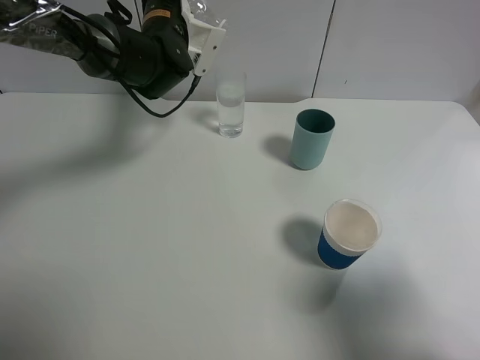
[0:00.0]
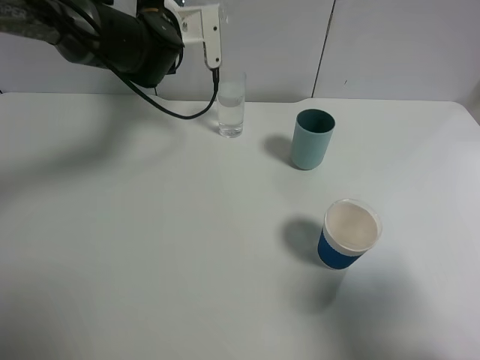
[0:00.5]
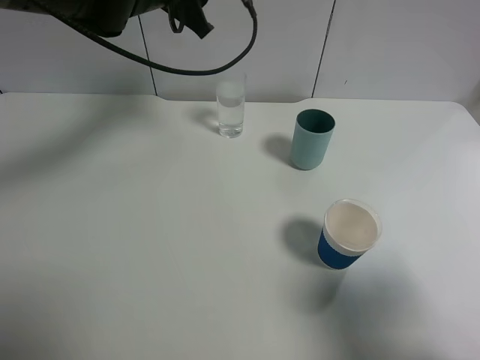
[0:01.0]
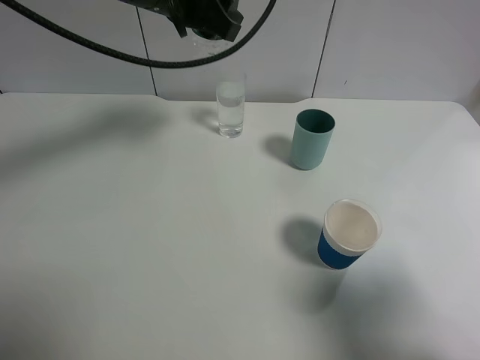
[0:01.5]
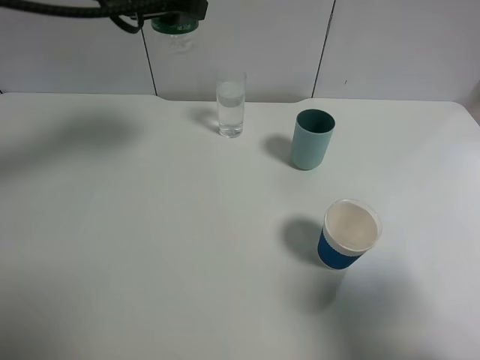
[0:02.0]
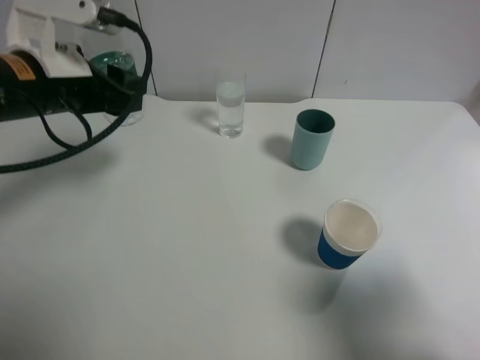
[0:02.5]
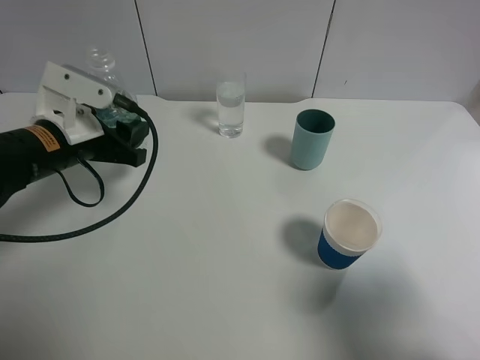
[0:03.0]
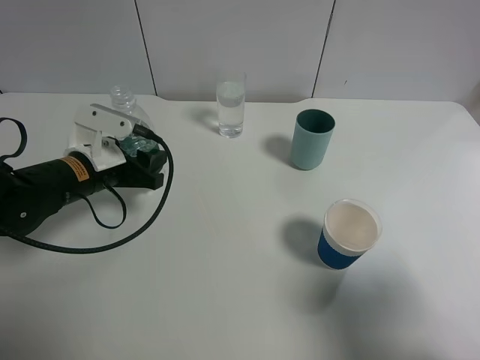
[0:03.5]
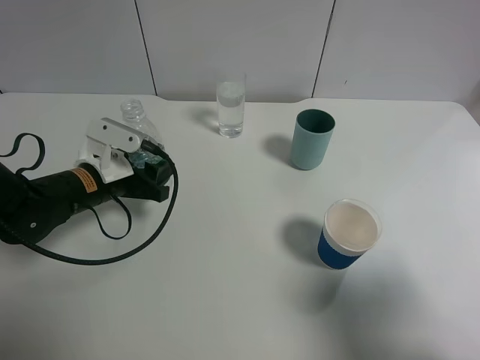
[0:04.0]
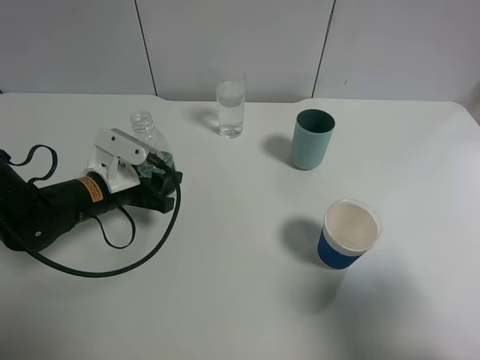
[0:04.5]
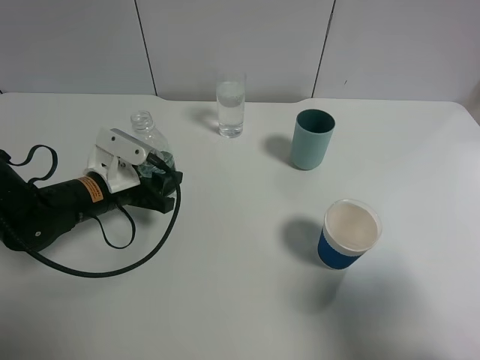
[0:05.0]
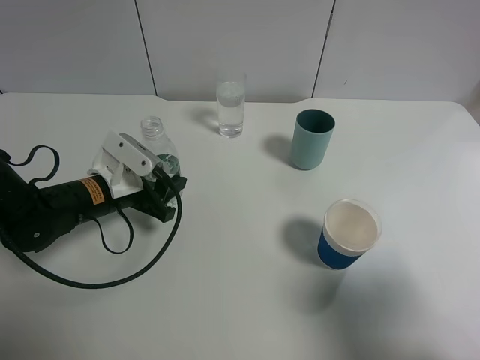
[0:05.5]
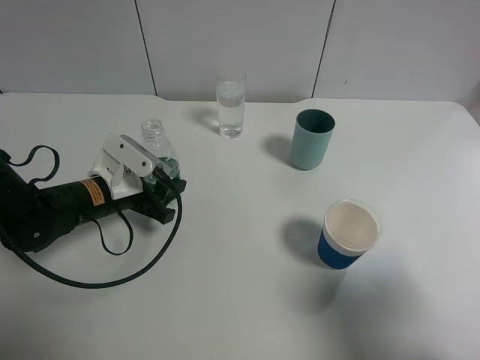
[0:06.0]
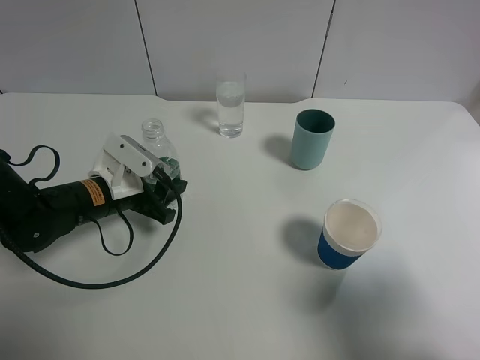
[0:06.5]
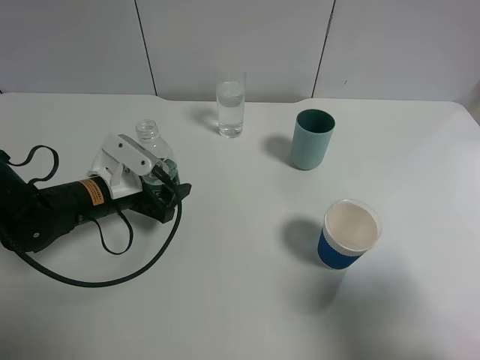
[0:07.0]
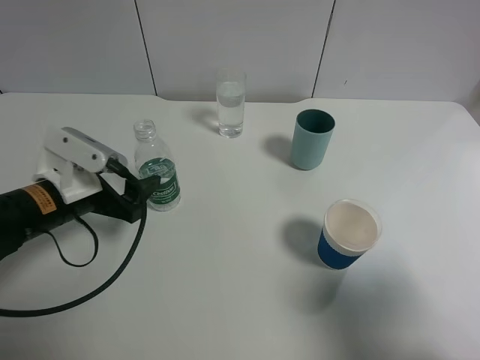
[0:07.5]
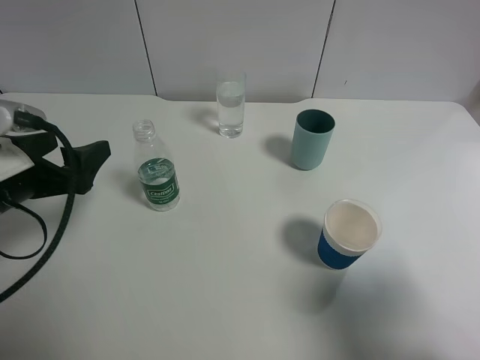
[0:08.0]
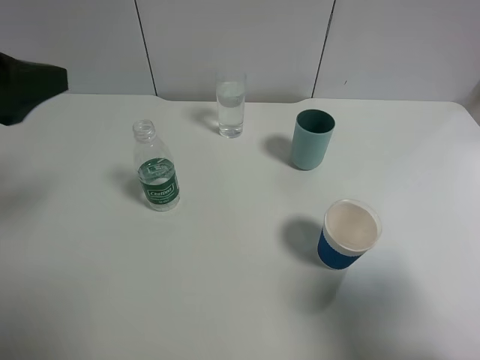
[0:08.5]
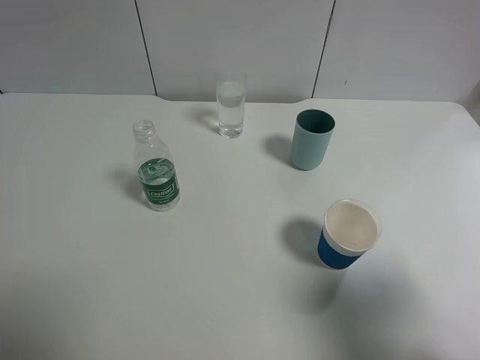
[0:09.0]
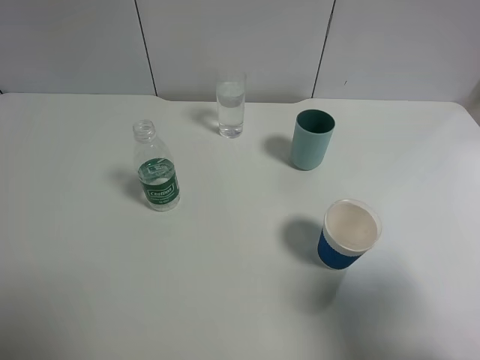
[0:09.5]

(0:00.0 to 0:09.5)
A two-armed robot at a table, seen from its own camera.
Task of the whole recording: use a gripper to hold the bottle of the drink and pour it into a random cup.
Step, 0:00.5 - 0:07.5: Place the mineral water bottle on the table with the left gripper.
0:00.0 - 0:02.0: The left gripper goes some 15 cm backward and upward.
0:02.0 - 0:04.0: The left gripper is displaced downward by some 25 cm.
0:04.0 - 0:05.5: The grippers stay close to where they were, moving slightly.
0:05.5 - 0:07.5: The left gripper moves backward, roughly 5 cm, and opens.
0:07.5 - 0:09.5: The left gripper heads upward, backward and to the left, covering some 30 cm.

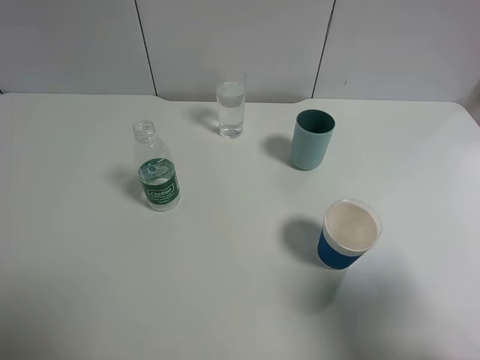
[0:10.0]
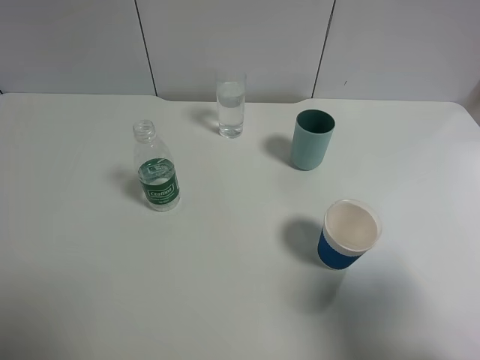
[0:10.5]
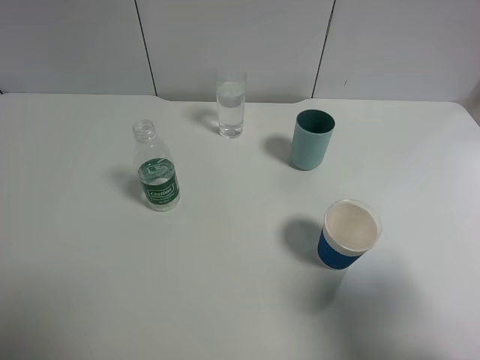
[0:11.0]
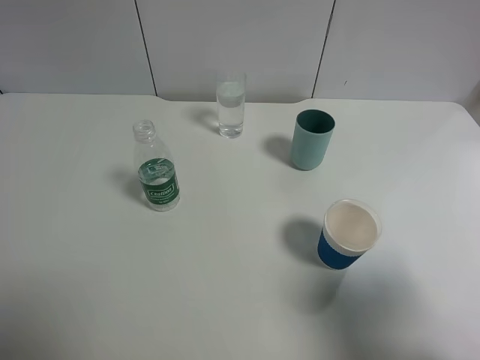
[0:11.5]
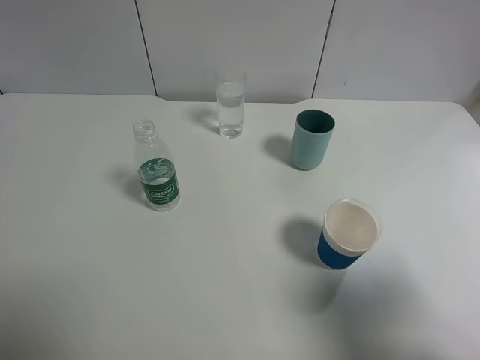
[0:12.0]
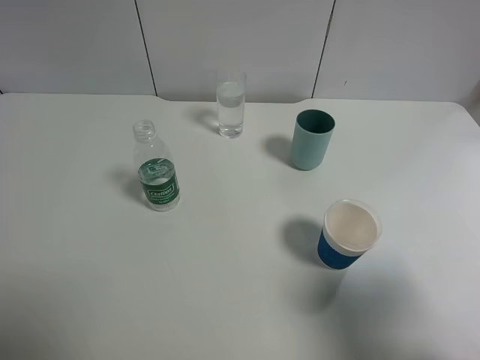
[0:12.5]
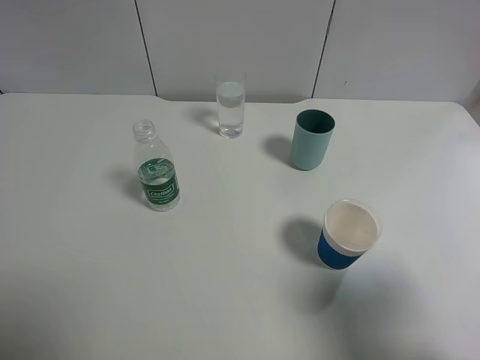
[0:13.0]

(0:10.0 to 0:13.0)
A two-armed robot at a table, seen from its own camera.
Task of the whole recording: use a gripper to hold the bottle of the drink and pour it into a random cup.
0:11.5 - 0:13.0: Neither gripper changes place.

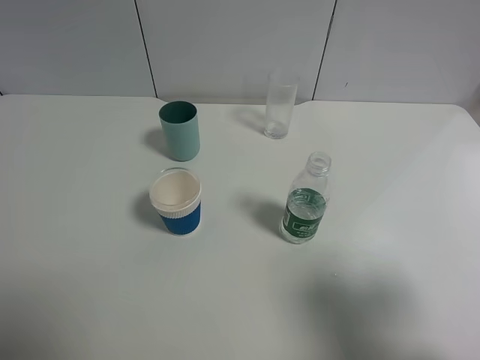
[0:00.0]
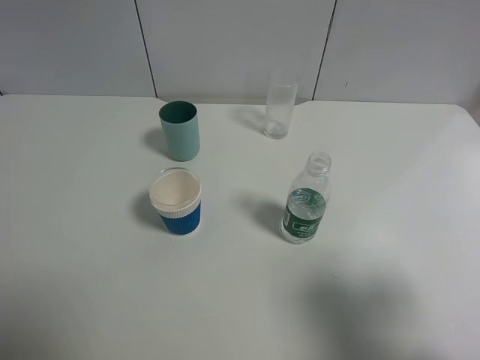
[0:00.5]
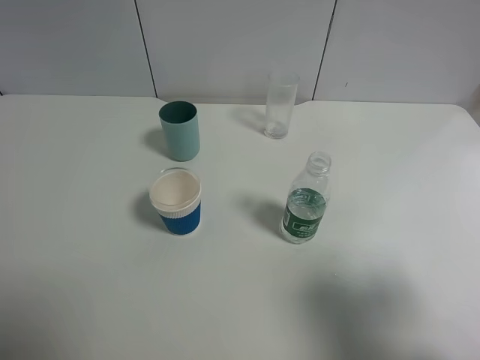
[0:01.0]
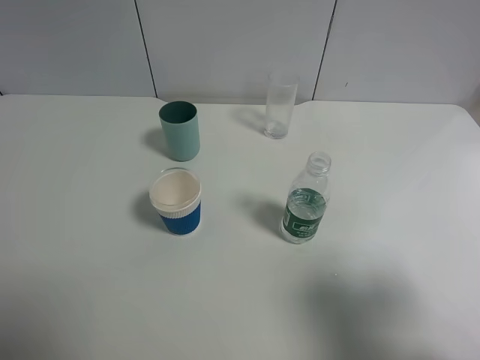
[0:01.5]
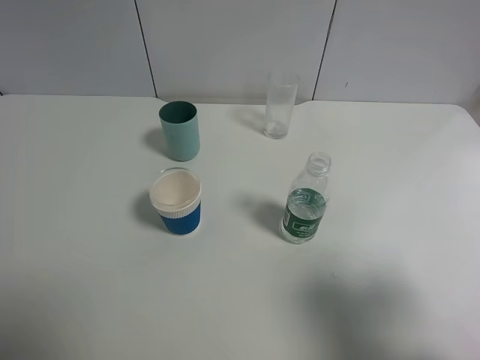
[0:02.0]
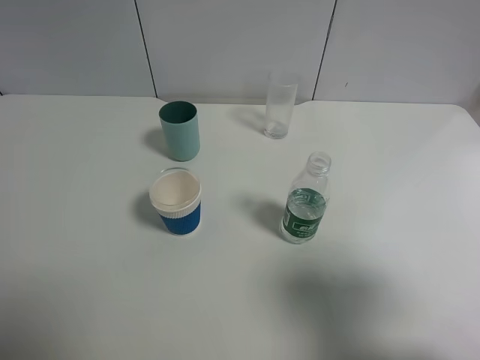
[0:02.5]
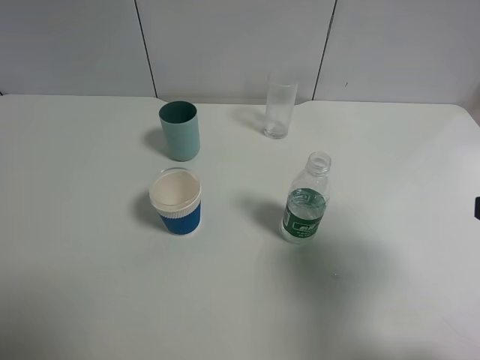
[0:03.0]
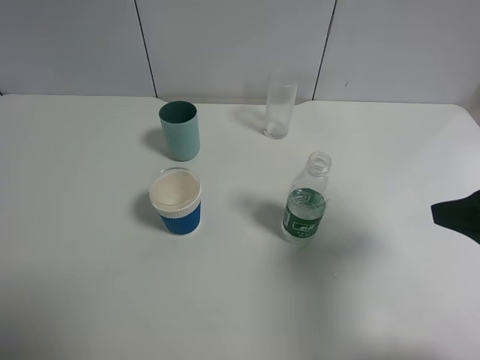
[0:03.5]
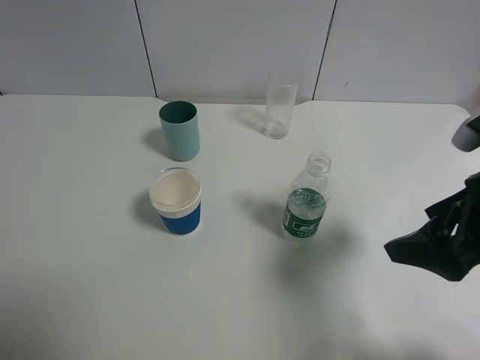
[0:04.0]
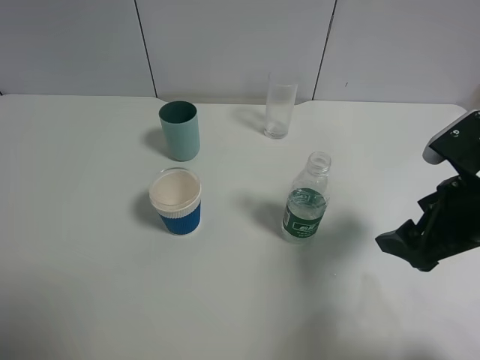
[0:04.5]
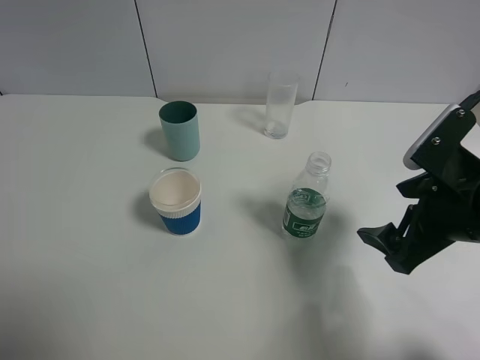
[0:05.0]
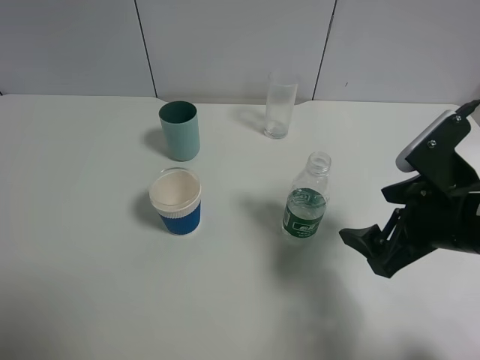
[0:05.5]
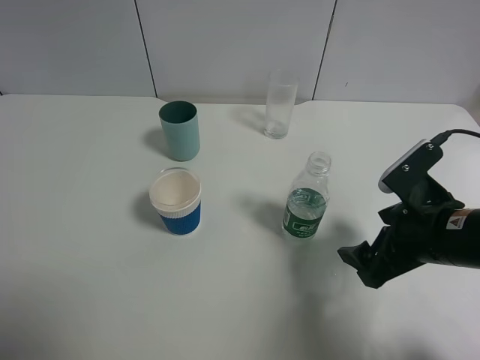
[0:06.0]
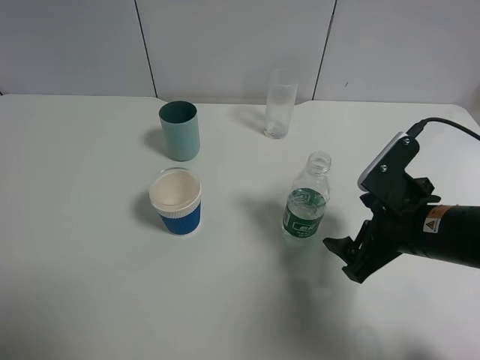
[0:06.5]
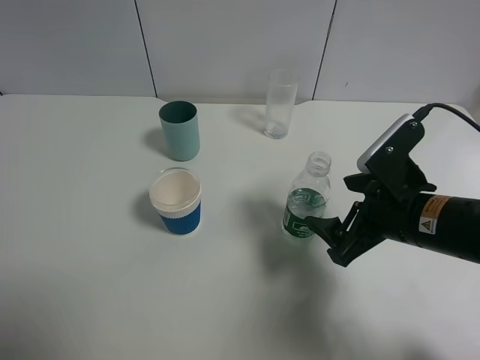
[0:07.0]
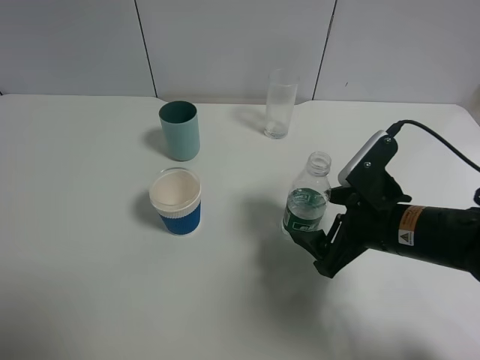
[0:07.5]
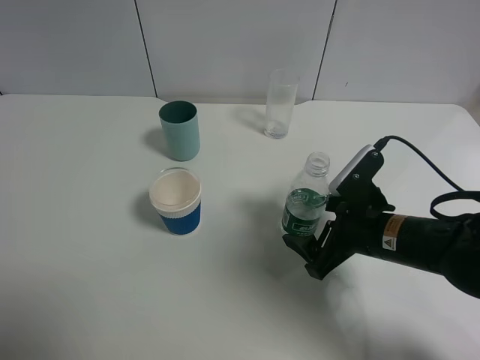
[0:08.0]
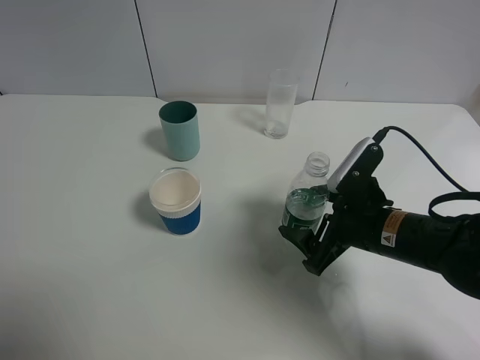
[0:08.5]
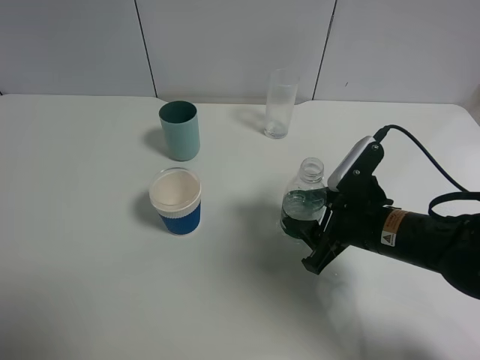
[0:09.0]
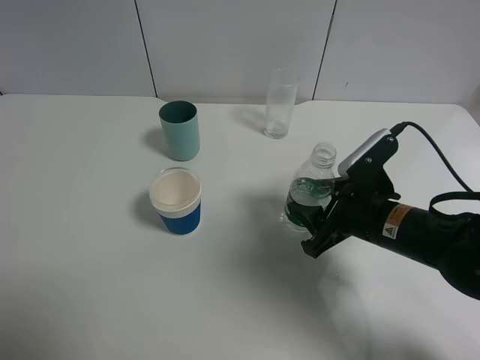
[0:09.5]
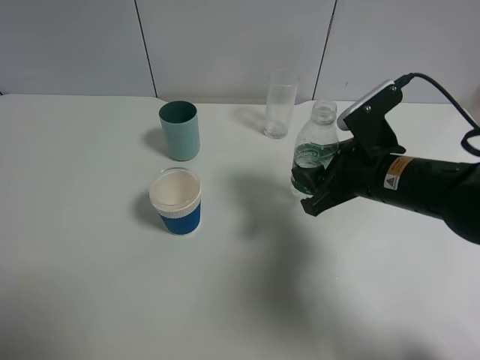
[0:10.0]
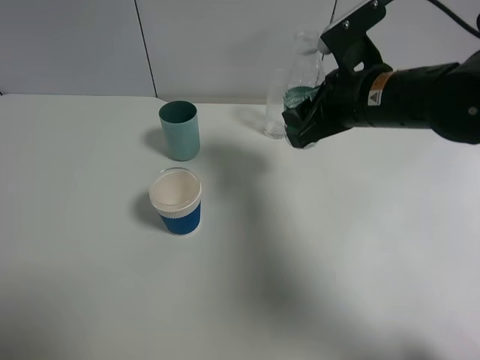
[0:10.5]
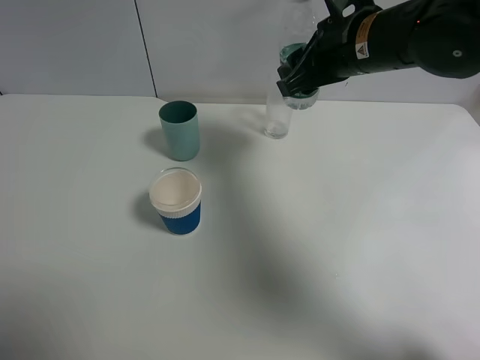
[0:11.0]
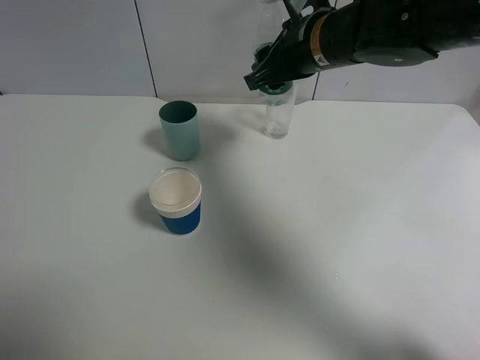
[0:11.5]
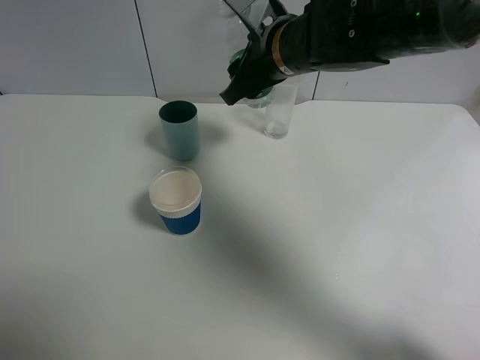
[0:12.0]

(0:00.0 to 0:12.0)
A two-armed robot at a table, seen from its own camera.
Task of the whole recording: use a gripper to hold the bottle of the drink and pour it into a random cup.
Step, 0:00.0 - 0:08.5: Grasp the mineral water bottle with the right gripper.
0:00.0 - 0:02.0: Neither gripper changes place.
0:02.0 - 0:04.0: The right gripper moves forward, approximately 15 cm.
0:04.0 - 0:06.0: The right gripper is displaced downward by approximately 10 cm.
0:06.0 - 0:08.0: The right gripper shifts by about 5 cm.
0:08.0 - 0:10.0: The right gripper heads upward, covering about 5 cm, and closes up.
0:10.0 - 0:12.0: The right gripper goes about 20 cm to the left, forward and upward.

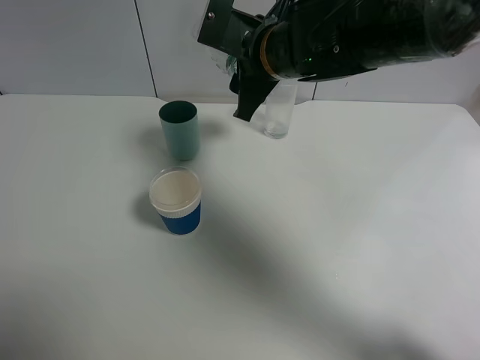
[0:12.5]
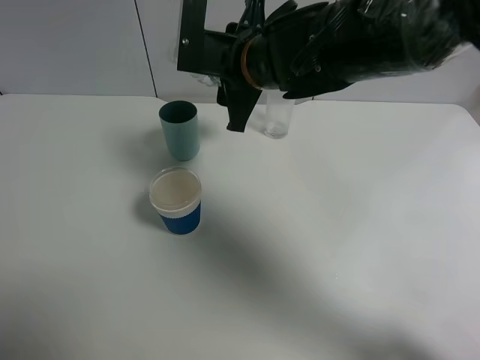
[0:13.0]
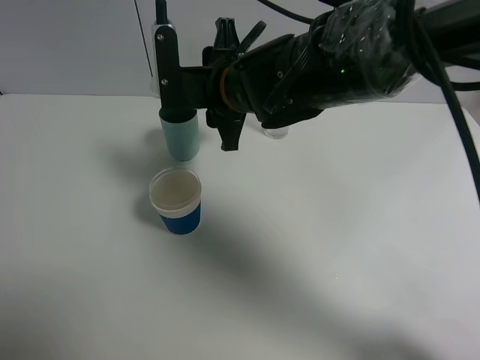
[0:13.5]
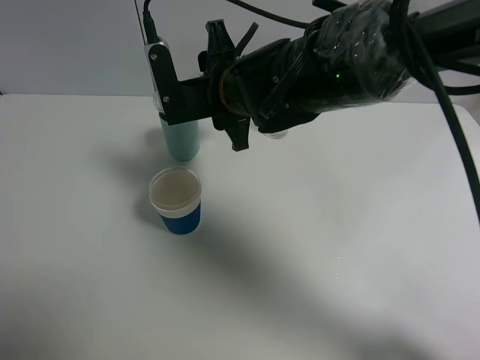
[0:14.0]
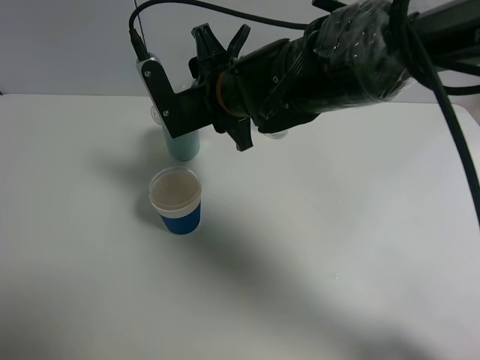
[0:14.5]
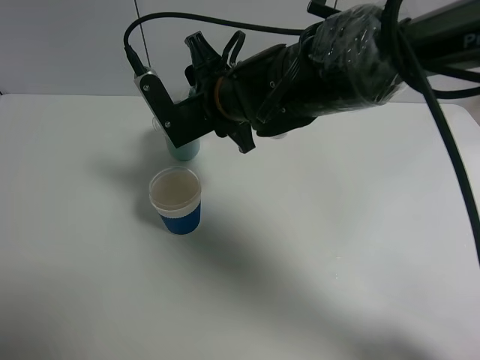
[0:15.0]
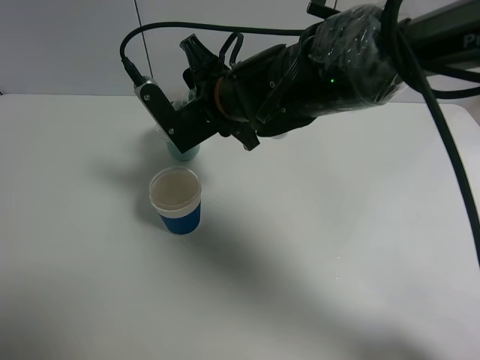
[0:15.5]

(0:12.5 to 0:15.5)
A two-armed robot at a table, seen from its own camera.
Task of the whole recording: use a gripper to hold the bottle of the drink and pour it into a random cup.
0:12.5 - 0:14.0: The right gripper shifts by approximately 5 cm.
0:14.0 - 0:15.5: There are only small adjustments of the grippers.
